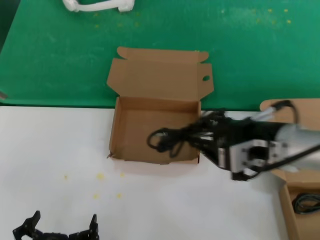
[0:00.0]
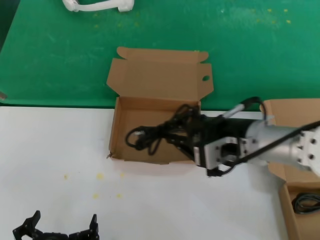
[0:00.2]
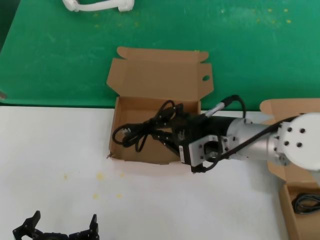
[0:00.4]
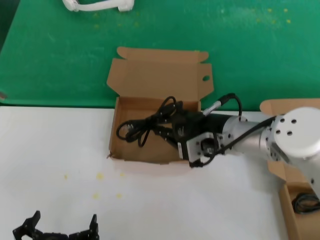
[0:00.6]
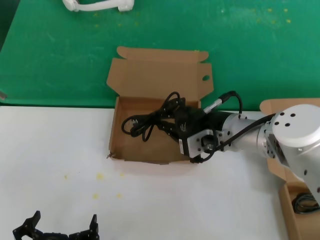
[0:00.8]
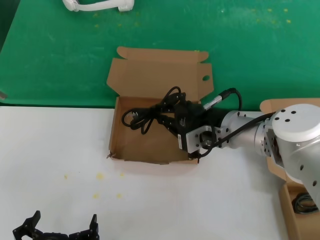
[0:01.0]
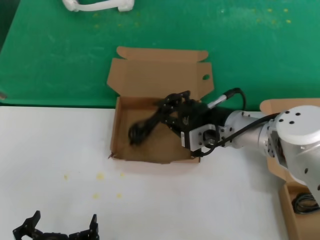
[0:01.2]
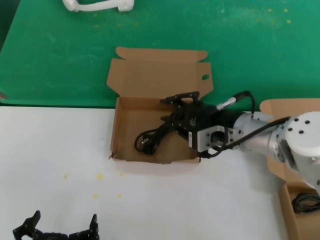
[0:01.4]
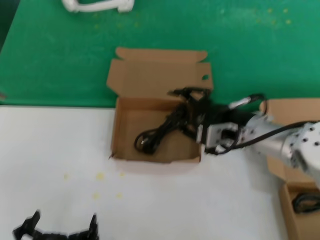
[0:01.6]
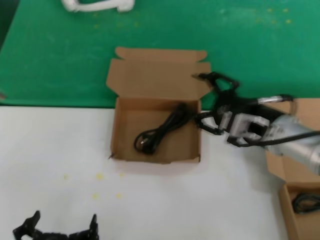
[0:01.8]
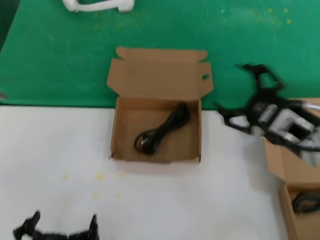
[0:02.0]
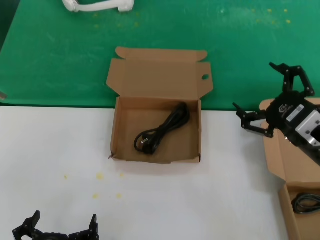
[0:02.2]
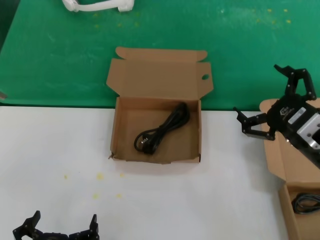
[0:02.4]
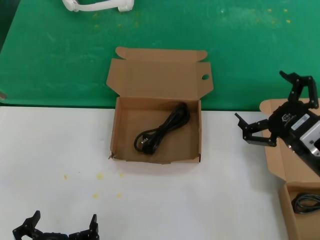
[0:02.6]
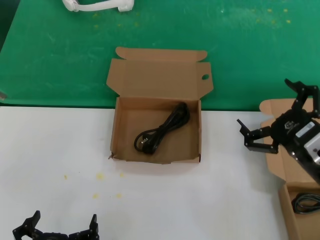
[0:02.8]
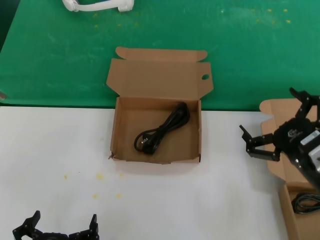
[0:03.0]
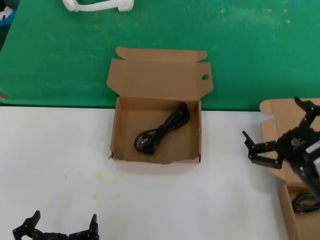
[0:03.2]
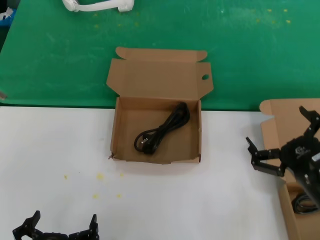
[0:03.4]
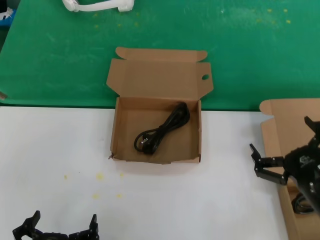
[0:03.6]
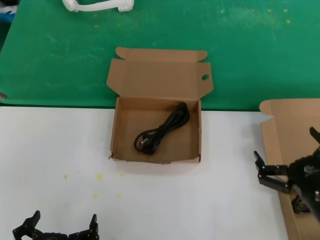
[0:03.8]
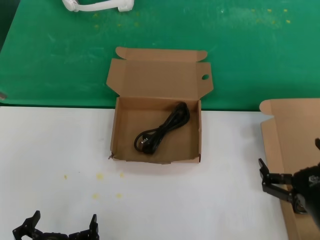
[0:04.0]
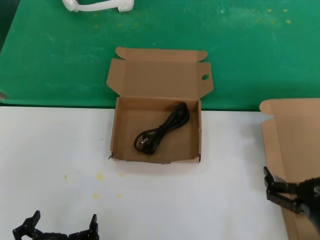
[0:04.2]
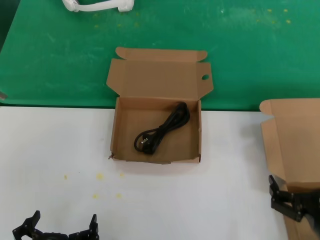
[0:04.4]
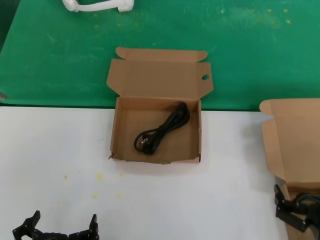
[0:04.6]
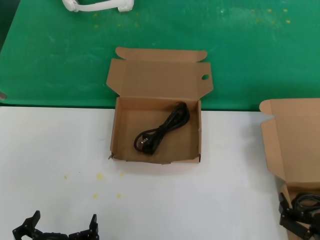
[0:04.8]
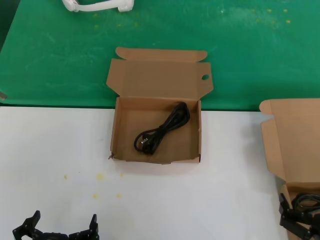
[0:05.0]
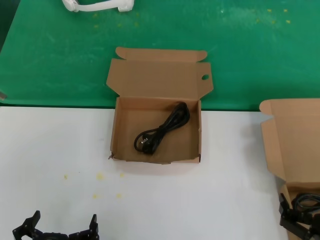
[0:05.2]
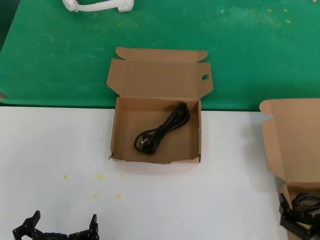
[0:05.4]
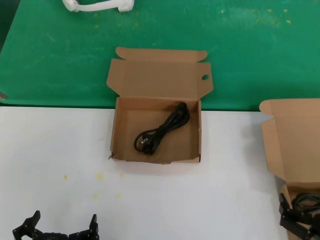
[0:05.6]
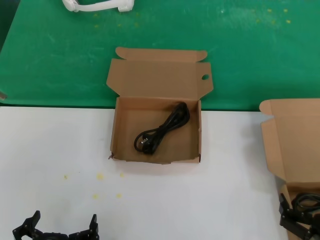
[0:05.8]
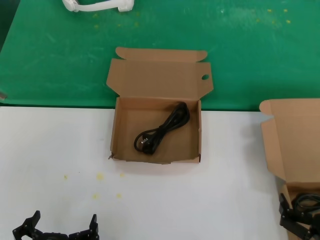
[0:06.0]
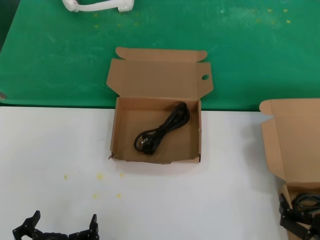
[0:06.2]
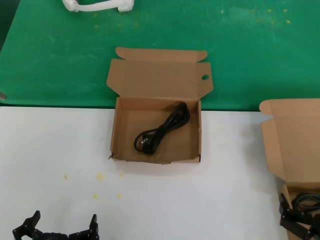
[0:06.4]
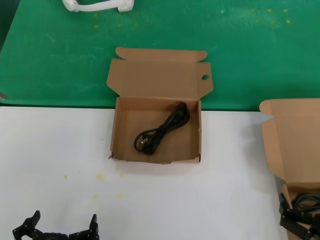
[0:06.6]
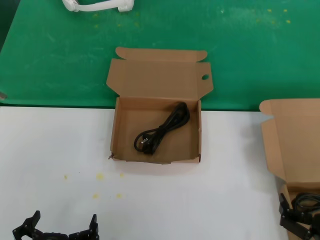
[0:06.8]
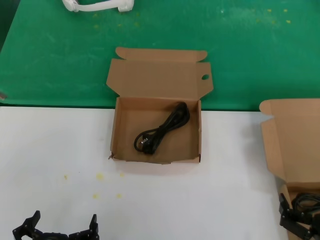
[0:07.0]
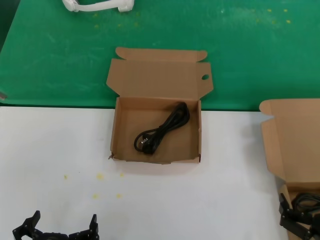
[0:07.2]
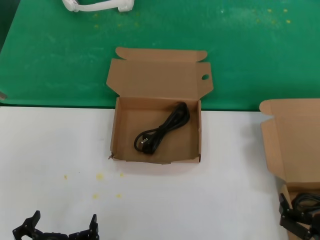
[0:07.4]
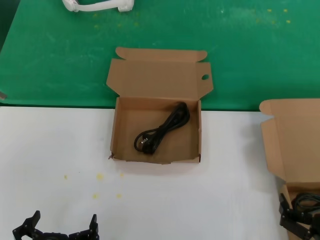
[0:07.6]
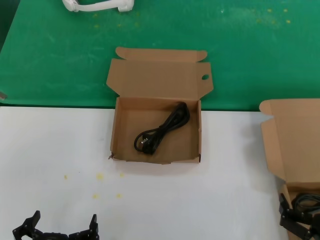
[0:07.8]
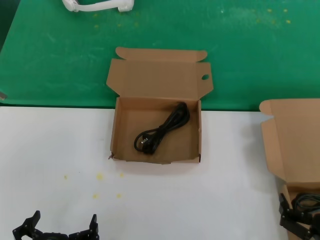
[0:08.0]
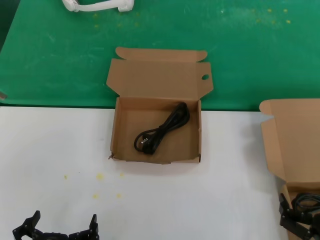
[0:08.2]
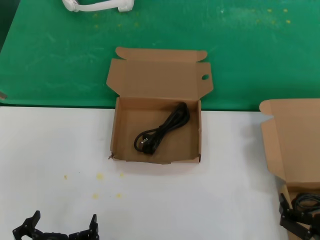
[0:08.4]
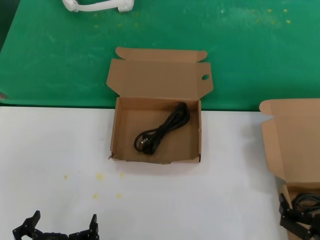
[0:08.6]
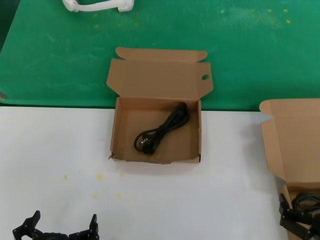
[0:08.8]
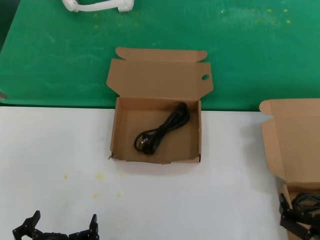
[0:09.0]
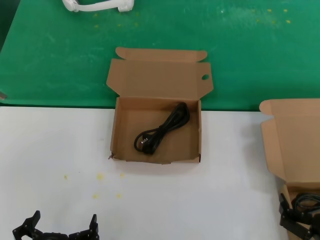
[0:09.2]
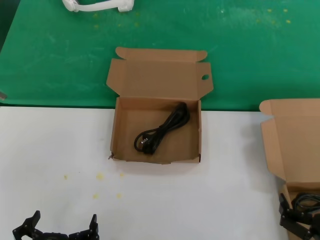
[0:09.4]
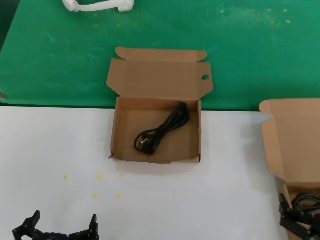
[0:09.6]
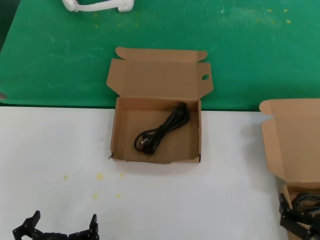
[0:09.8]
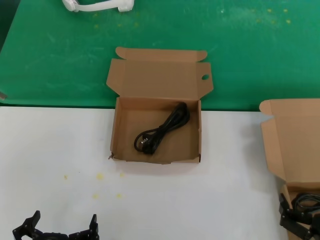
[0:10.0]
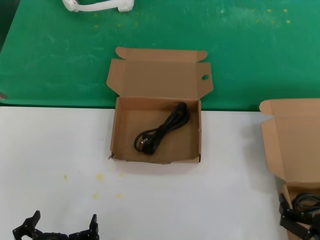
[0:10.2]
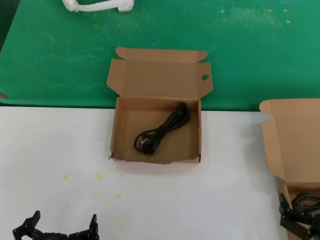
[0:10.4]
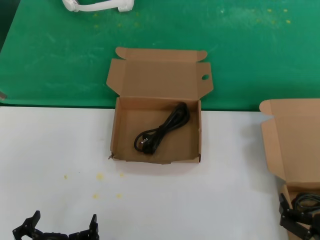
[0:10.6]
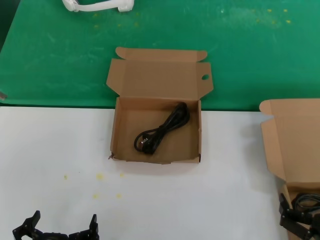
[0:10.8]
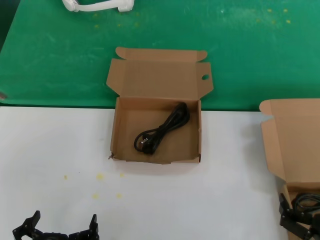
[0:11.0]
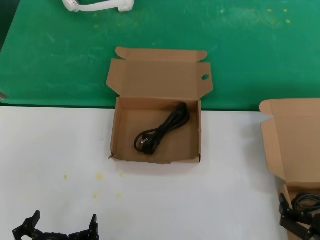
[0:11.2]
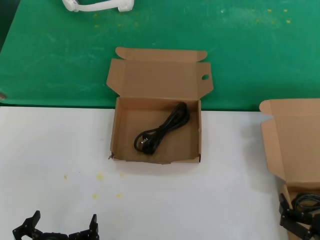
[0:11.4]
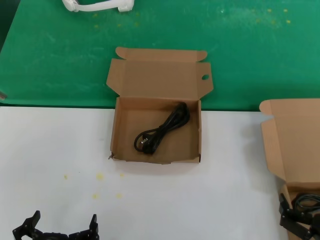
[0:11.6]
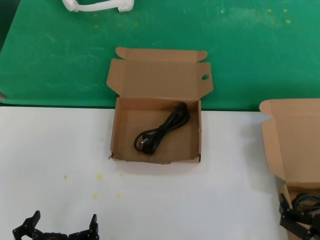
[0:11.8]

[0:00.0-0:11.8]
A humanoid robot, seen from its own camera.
Task of the whole recording: take the parts from the box containing them and put them into an empty box.
Step, 0:00.0 to 0:01.6: Place the data cable in the another box.
0:00.0 to 0:01.4: The right hand is displaced forward, to the left and downward by approximately 15 cm.
0:01.4 to 0:03.0: The right hand shifts some 20 cm backward, to the right and downward.
0:03.0 to 0:04.4: The right hand shifts approximately 15 cm downward and backward.
0:04.4 to 0:06.0: The hands stay close to where they were, moving slightly.
0:06.0 to 0:11.8: Both hands stay put.
